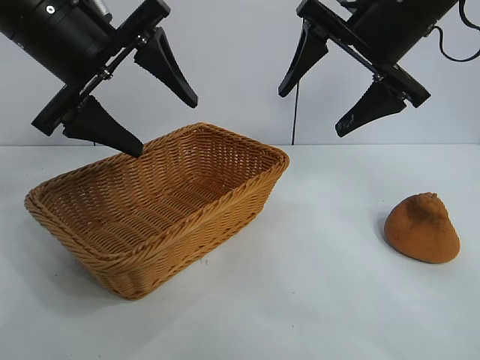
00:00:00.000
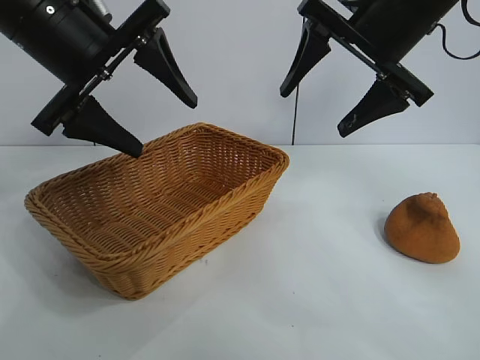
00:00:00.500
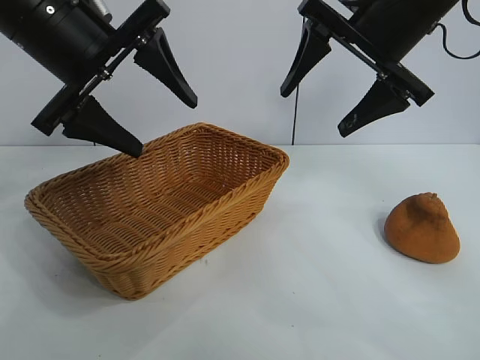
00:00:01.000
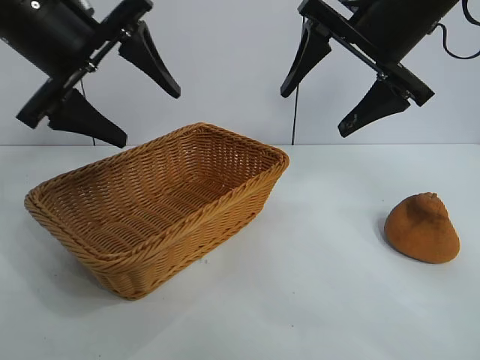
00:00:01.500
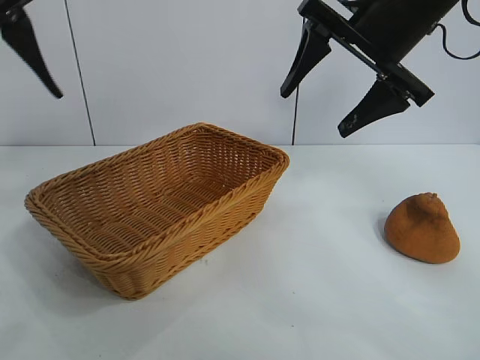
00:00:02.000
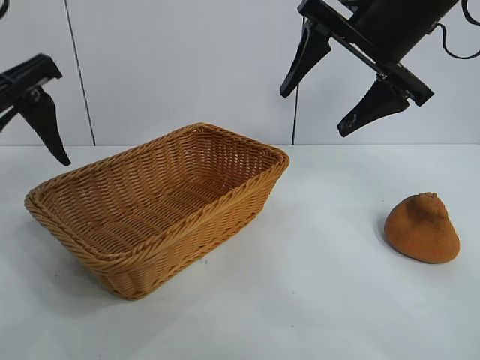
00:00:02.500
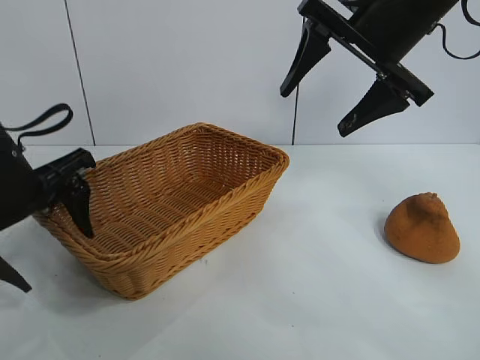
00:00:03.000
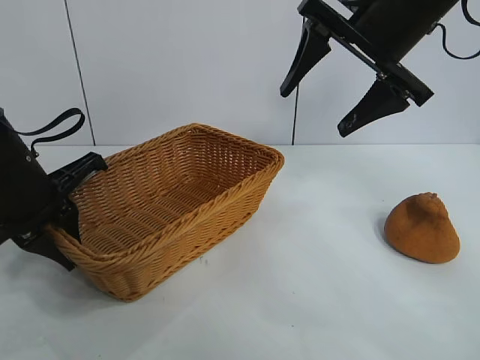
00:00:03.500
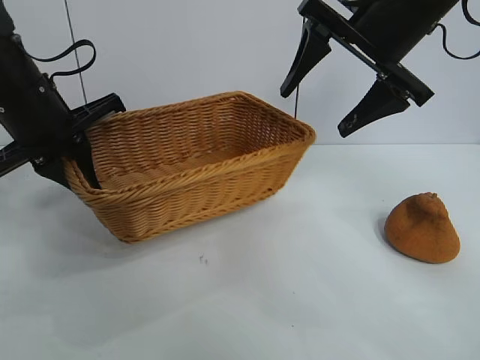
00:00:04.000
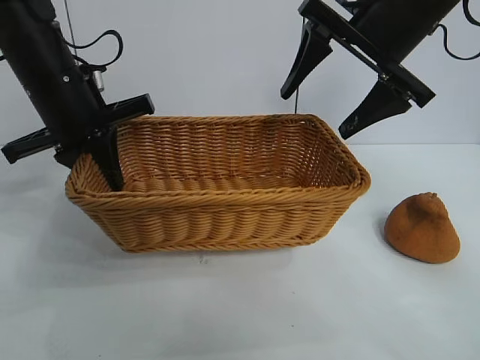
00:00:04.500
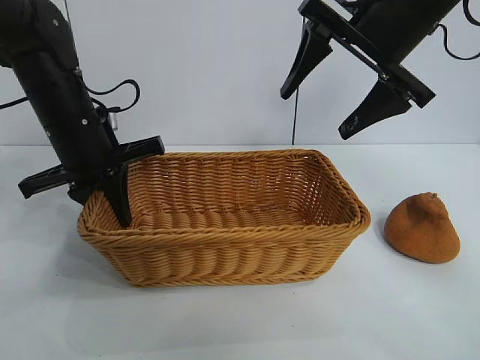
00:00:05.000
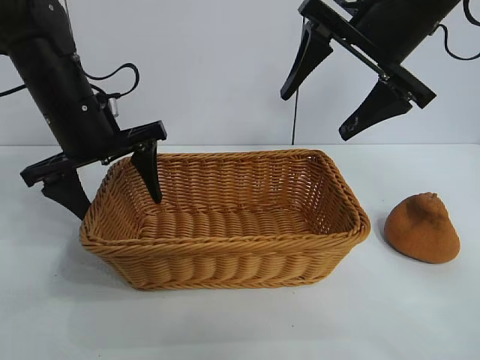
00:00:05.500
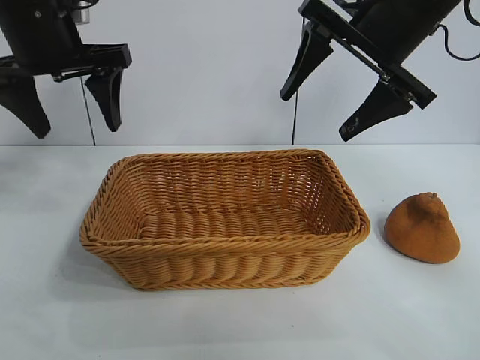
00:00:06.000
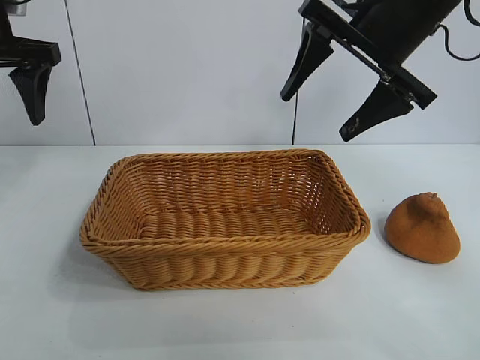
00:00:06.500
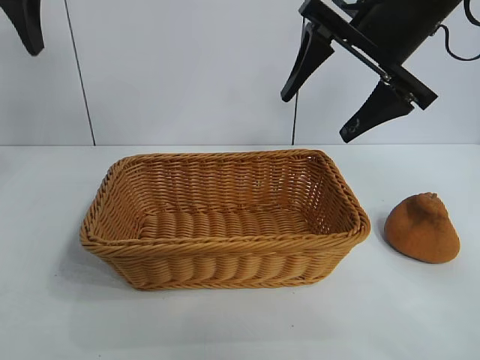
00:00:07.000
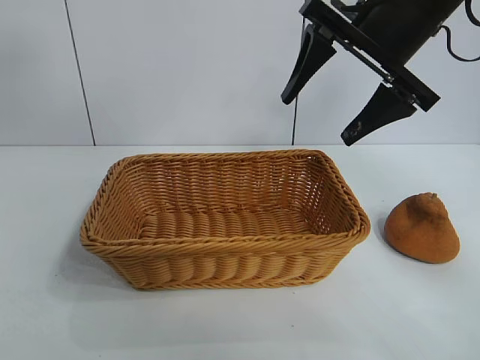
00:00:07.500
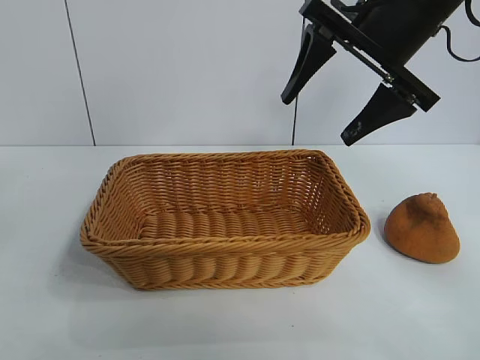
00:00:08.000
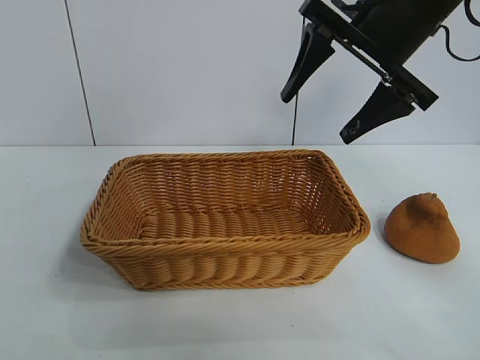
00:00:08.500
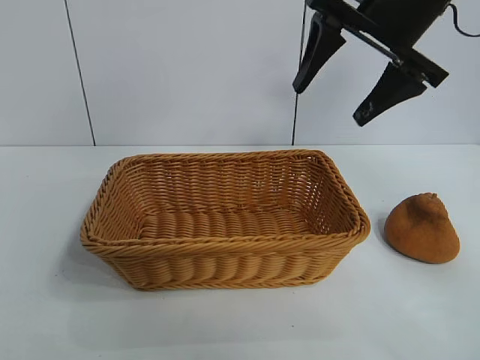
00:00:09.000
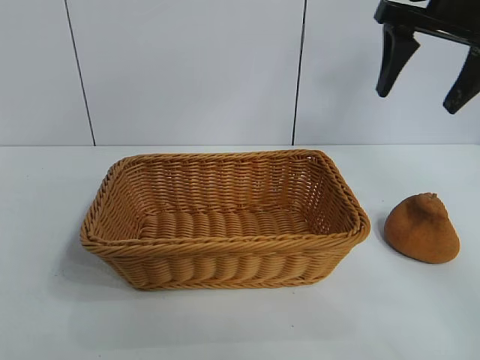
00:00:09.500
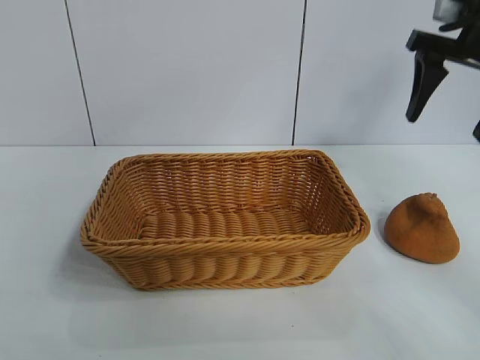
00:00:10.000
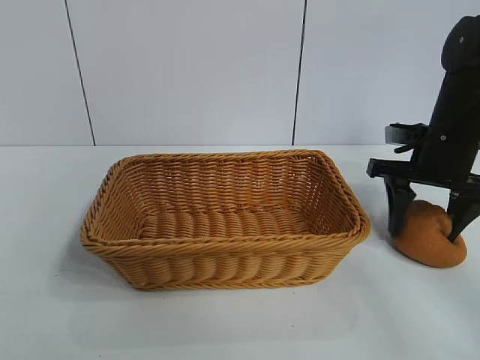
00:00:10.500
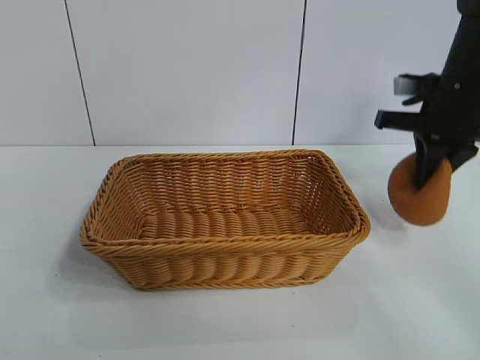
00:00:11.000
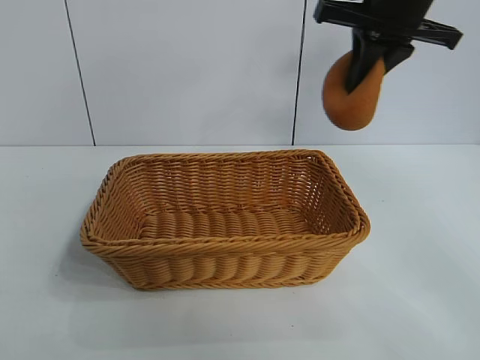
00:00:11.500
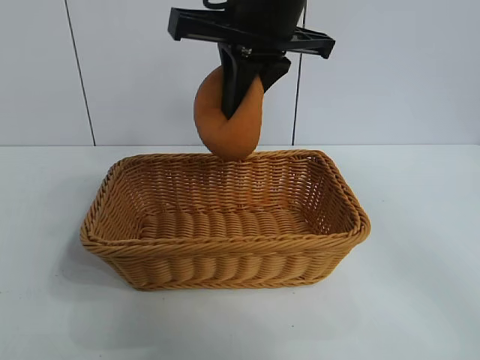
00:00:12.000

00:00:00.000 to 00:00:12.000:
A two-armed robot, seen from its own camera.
Task of the whole recording: pick up the orange and put it into the basket.
Step, 00:00:01.000 to 00:00:03.500: Grasp the basket with left gripper.
Step, 00:00:04.000 to 00:00:05.000: Place the basket in the center of view with left gripper.
Step, 00:00:06.000 to 00:00:10.500: Grasp the orange with right gripper.
